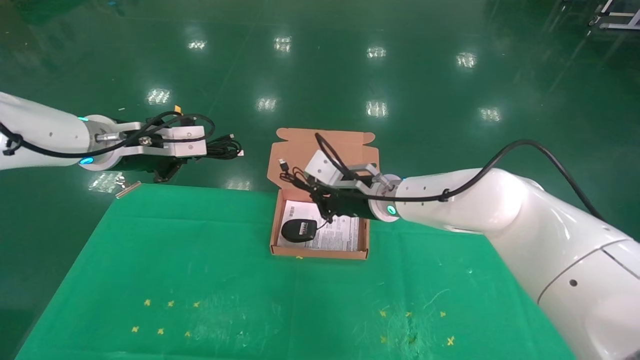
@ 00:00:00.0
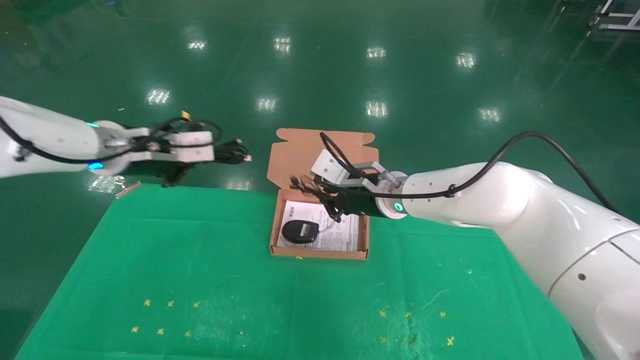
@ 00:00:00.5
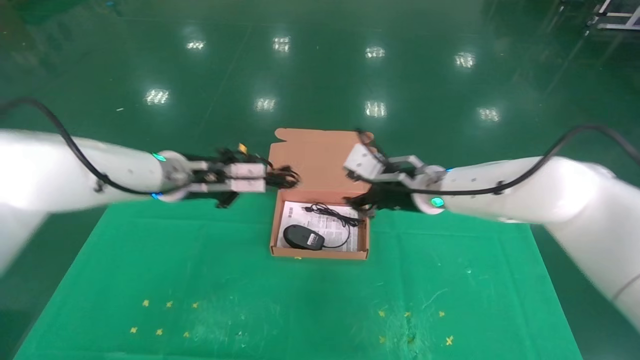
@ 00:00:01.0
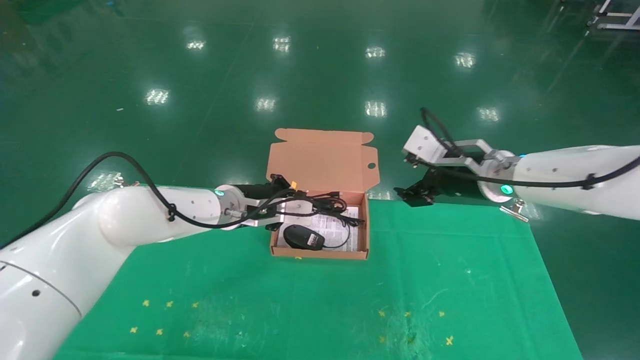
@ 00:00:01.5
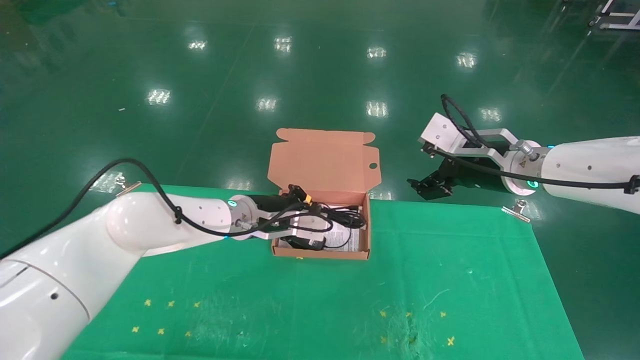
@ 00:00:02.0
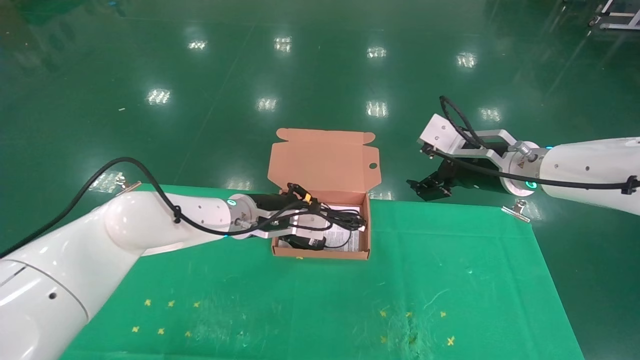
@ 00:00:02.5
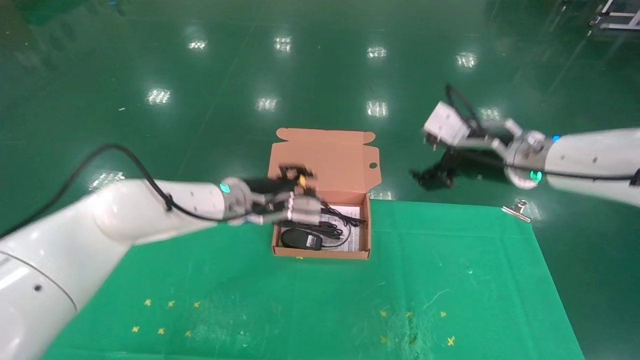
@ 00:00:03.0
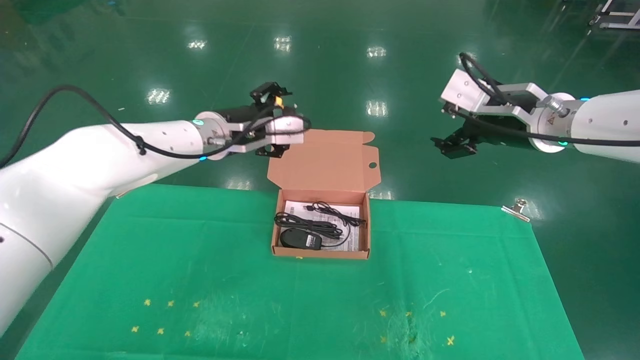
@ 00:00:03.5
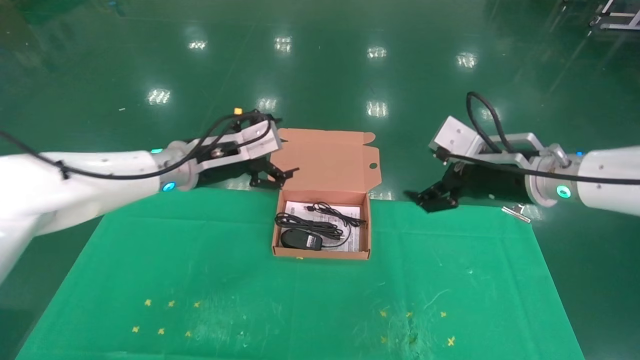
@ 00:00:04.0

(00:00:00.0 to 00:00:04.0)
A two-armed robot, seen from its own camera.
Task of the whole recording: grasp data cable left put into box grasp mouse right put into box.
Step, 00:00:00.0 - 00:00:04.0: Place the mouse and power cord into the box.
00:00:00.0 - 00:00:02.0: The right gripper is displaced to the right by about 15 cm, and opens; the left gripper is displaced to the right and downward by approximately 20 cm.
00:00:02.0 - 00:00:04.0: The left gripper moves upward and to the left, roughly 10 cm, and opens up.
